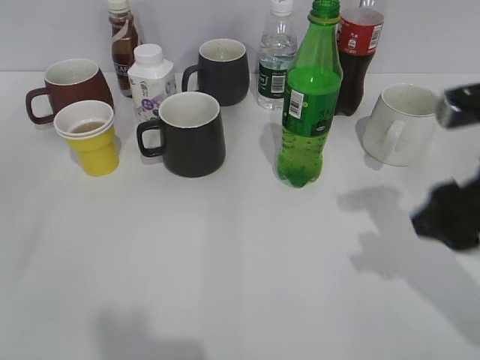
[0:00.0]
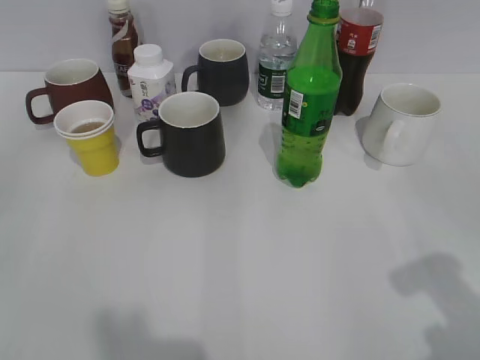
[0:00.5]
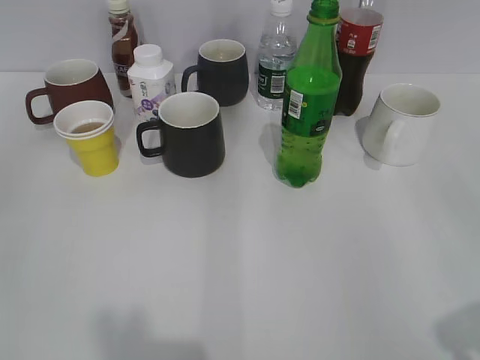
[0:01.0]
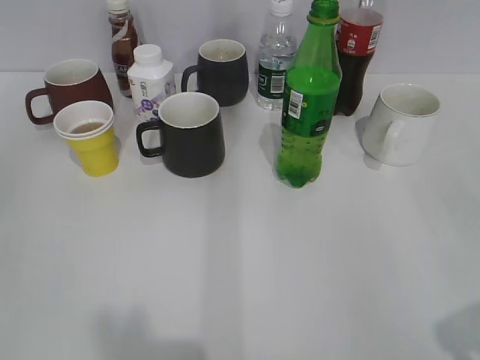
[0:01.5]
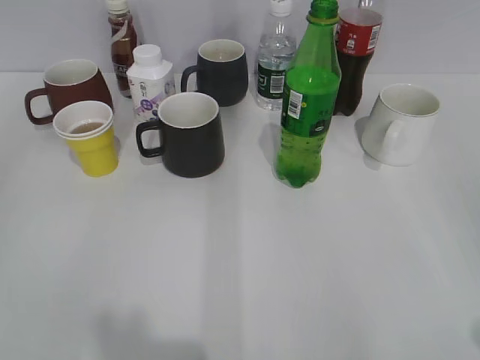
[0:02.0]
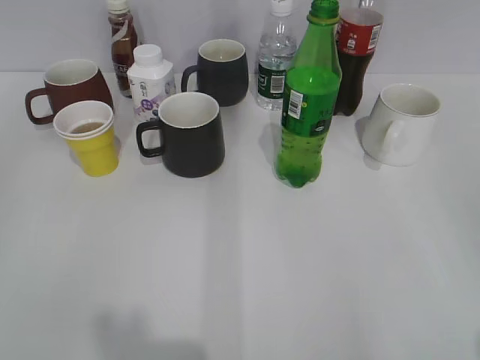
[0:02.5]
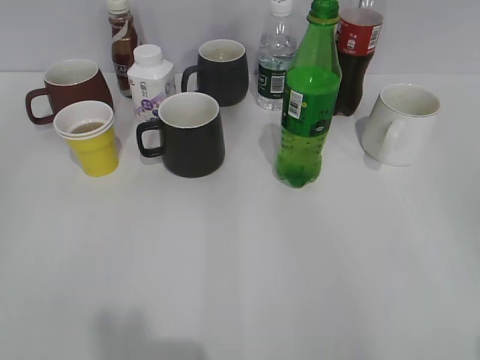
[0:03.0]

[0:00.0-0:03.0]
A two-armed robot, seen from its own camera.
0:00.0 to 0:01.5: The right gripper is displaced backward and to the right by roughly 20 cm.
